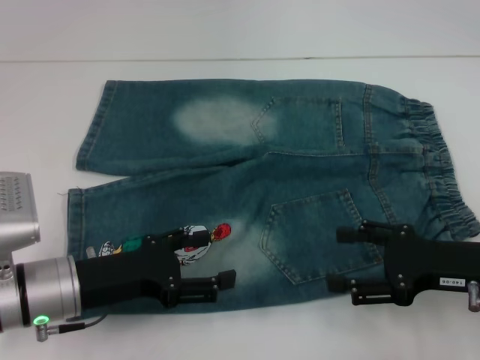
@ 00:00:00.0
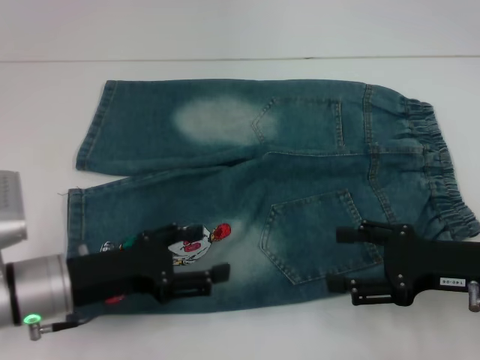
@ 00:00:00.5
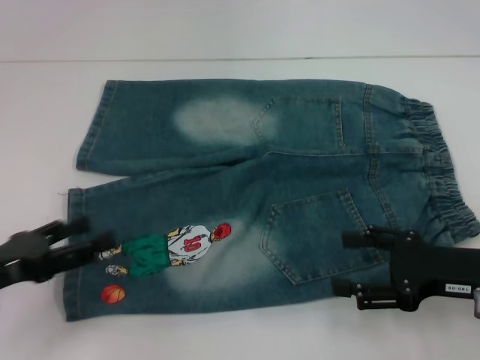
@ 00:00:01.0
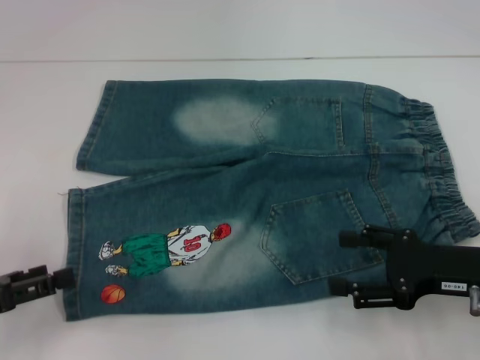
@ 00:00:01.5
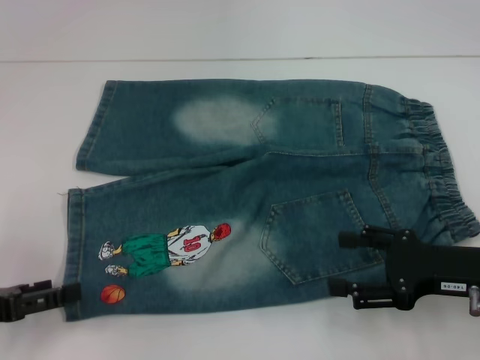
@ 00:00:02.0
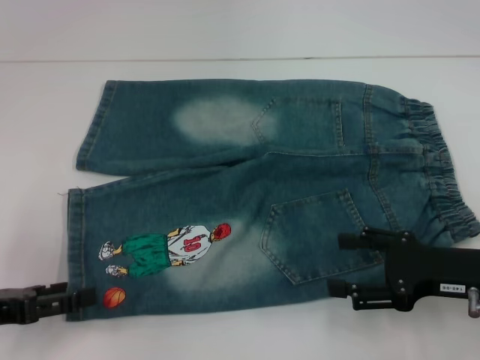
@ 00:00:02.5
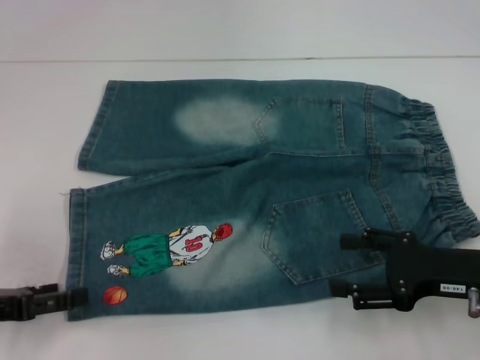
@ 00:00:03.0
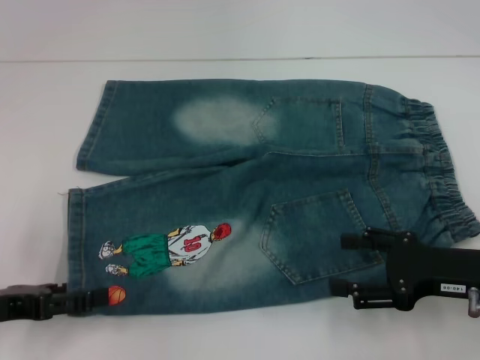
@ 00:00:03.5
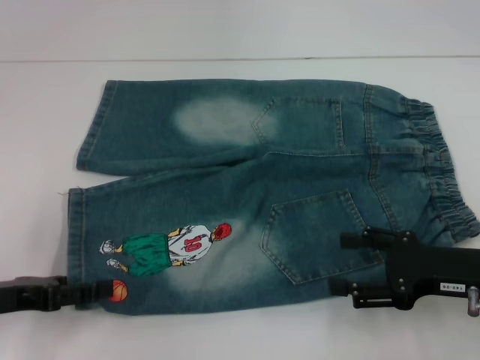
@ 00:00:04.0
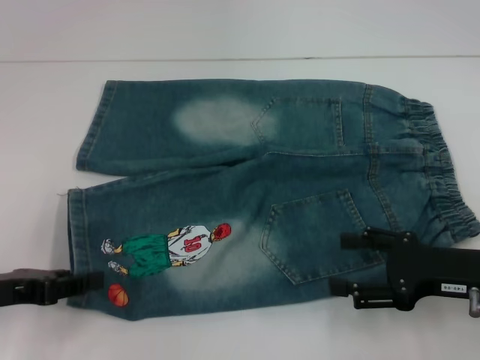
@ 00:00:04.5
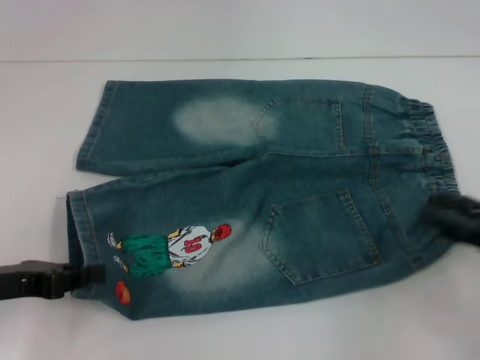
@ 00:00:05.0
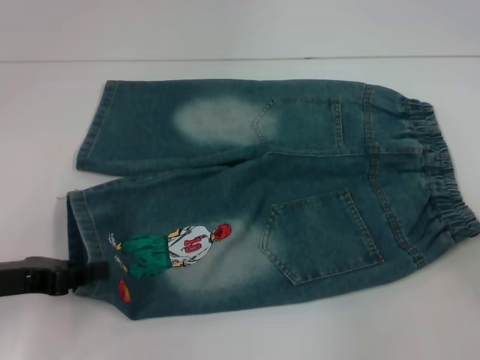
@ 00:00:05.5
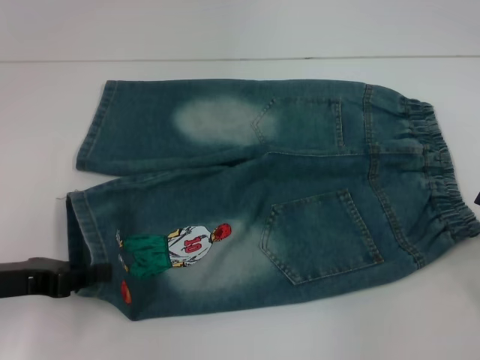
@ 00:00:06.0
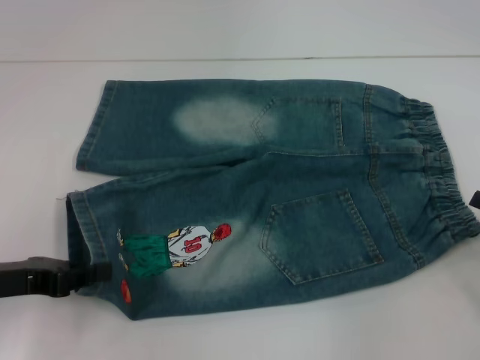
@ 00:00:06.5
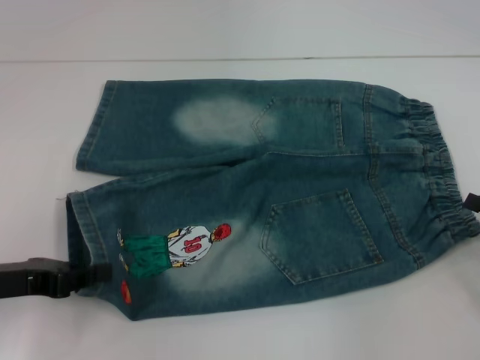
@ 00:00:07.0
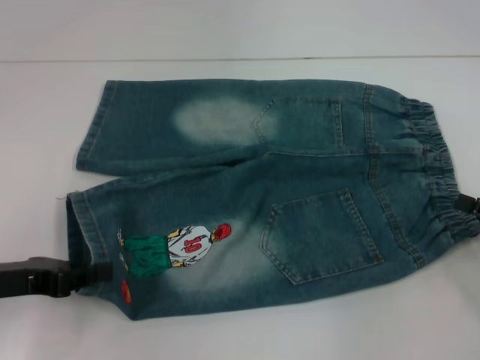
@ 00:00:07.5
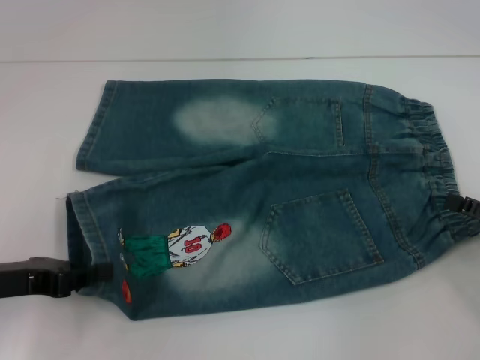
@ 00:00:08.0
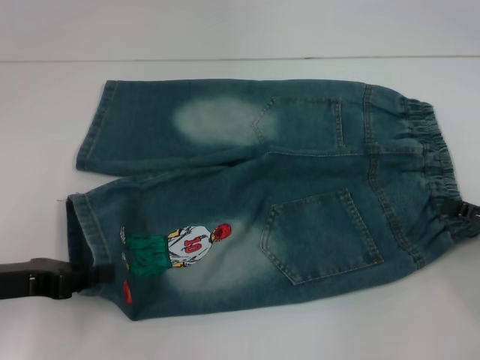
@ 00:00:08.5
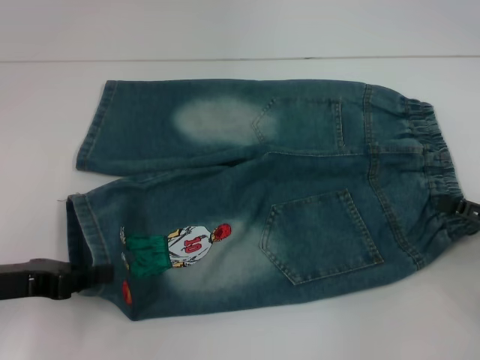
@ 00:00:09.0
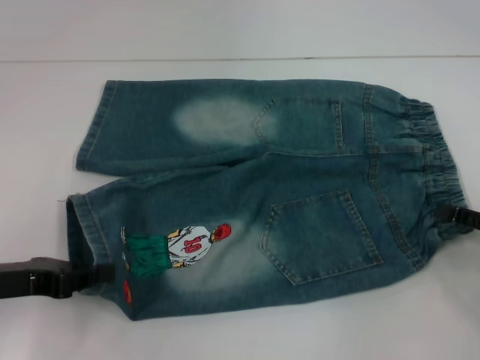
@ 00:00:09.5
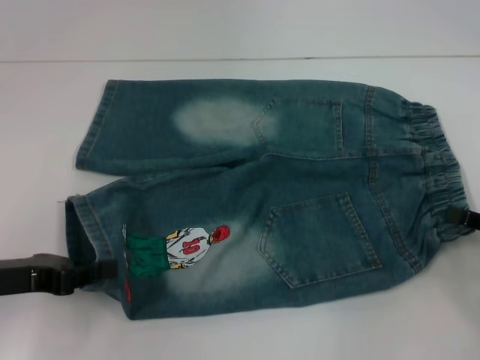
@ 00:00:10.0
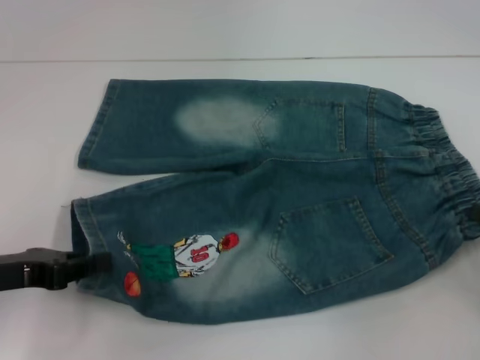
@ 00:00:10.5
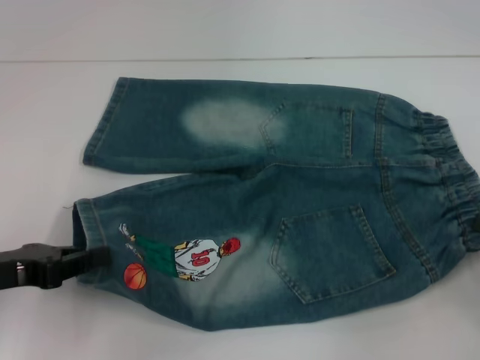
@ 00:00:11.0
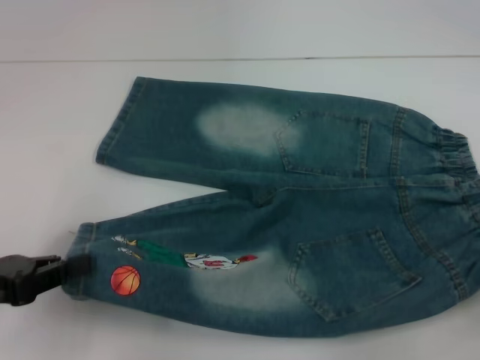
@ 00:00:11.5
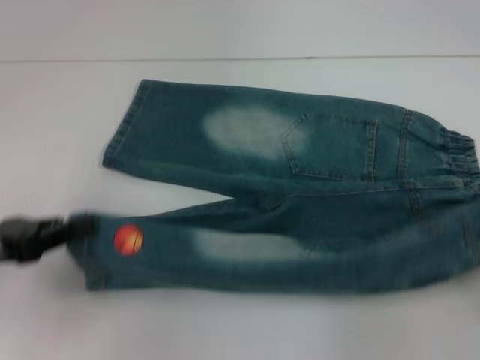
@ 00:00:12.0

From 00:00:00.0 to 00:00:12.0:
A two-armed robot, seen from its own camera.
Step, from 00:00:00.0 to 00:00:04.5: Grab the lower left pant leg with your left hand.
Step, from 00:00:05.5 to 00:00:10.0: Hold the lower right waistband with your right hand.
From 00:00:00.0 to 00:00:02.0: The left gripper heads to the left, covering roughly 15 cm.
From 00:00:02.0 to 00:00:04.0: The grippers stay close to where they were, moving slightly.
From 00:00:04.0 to 00:00:06.0: The right gripper moves to the right, about 10 cm. The left gripper closes.
From 00:00:08.0 to 00:00:10.0: The right gripper closes its fingers.
From 00:00:10.0 to 00:00:12.0: The right gripper shifts by about 5 cm.

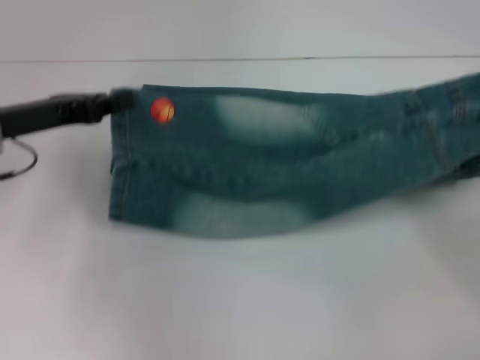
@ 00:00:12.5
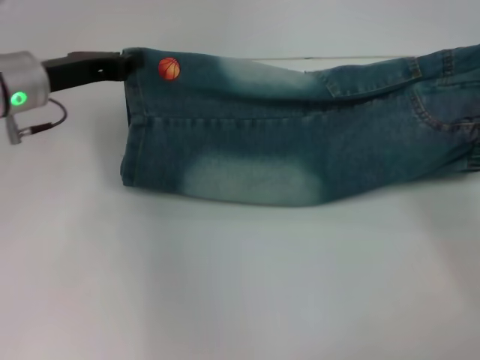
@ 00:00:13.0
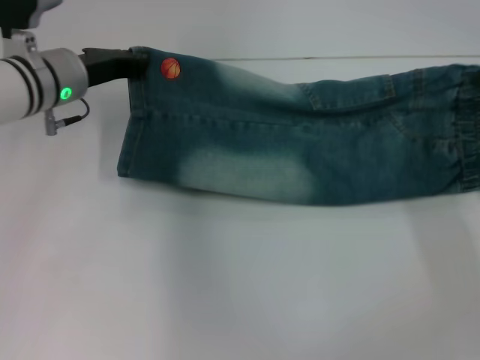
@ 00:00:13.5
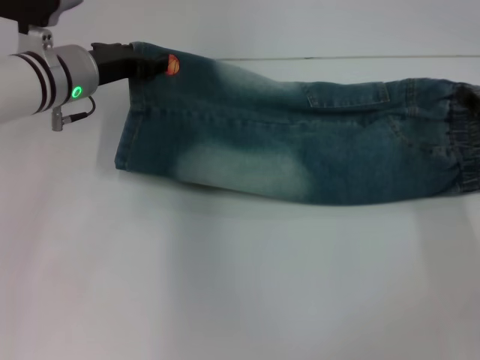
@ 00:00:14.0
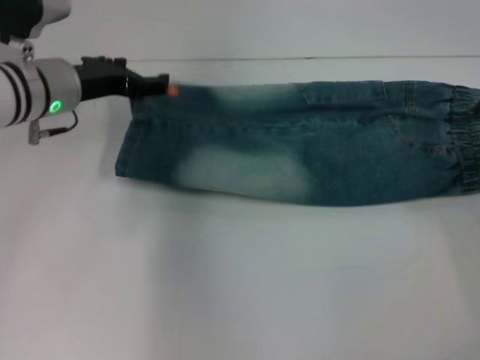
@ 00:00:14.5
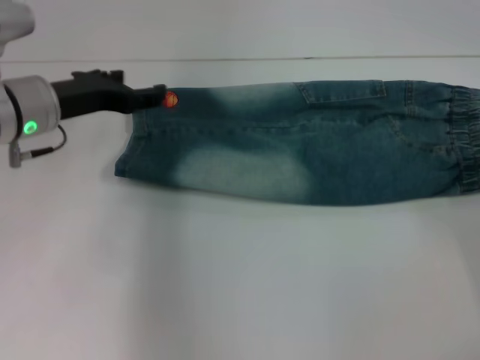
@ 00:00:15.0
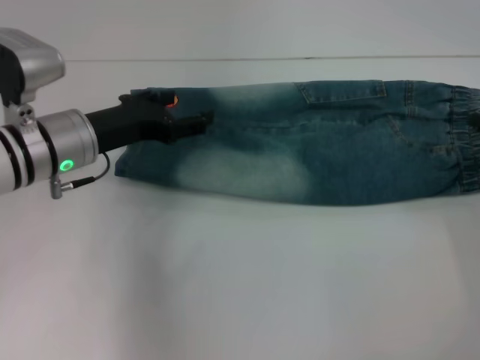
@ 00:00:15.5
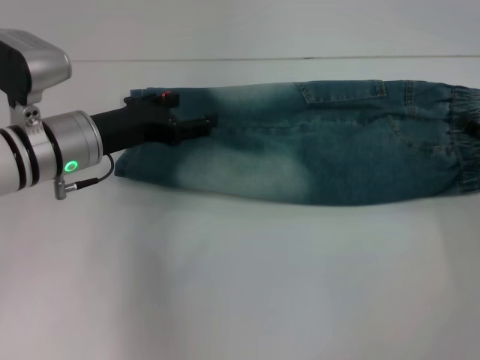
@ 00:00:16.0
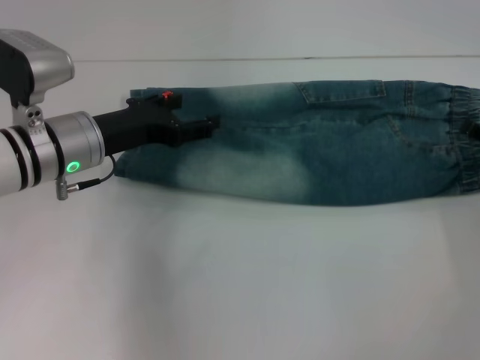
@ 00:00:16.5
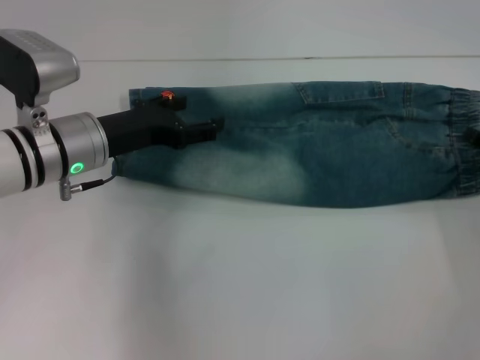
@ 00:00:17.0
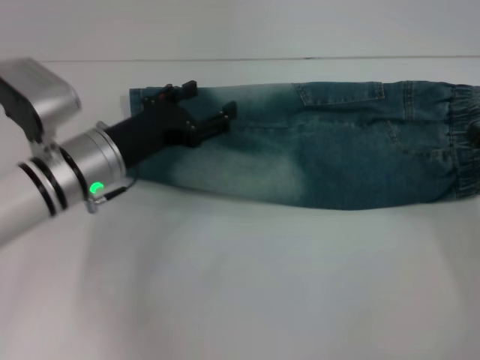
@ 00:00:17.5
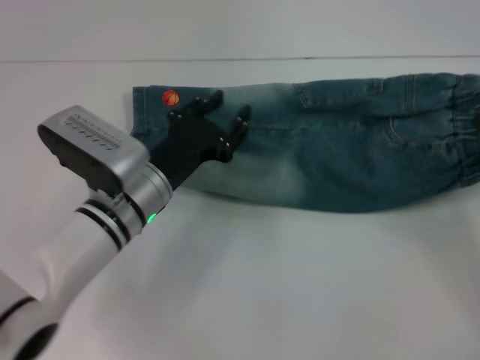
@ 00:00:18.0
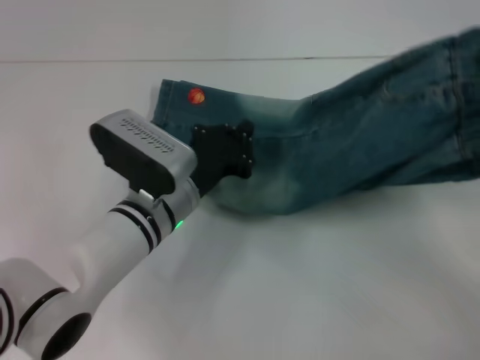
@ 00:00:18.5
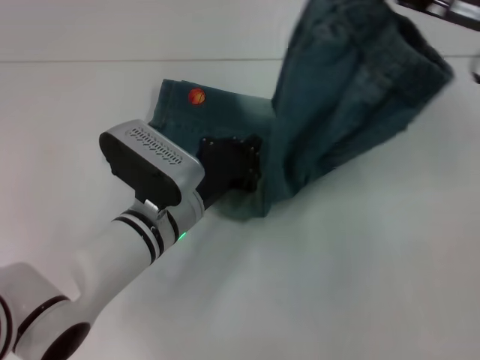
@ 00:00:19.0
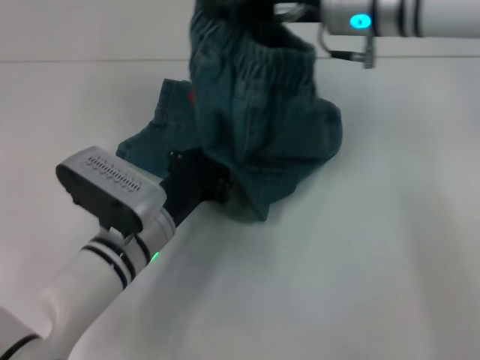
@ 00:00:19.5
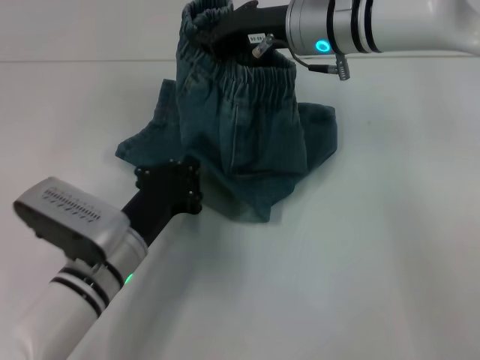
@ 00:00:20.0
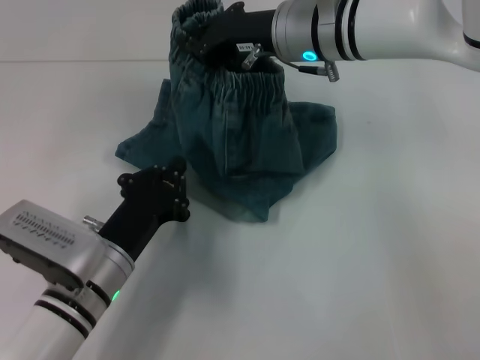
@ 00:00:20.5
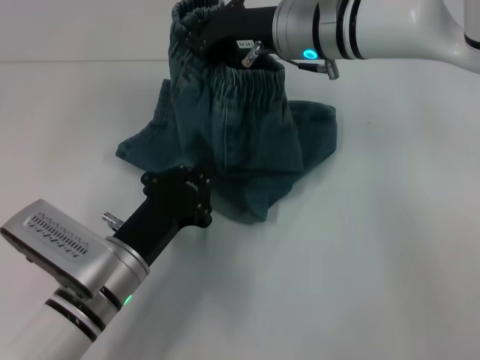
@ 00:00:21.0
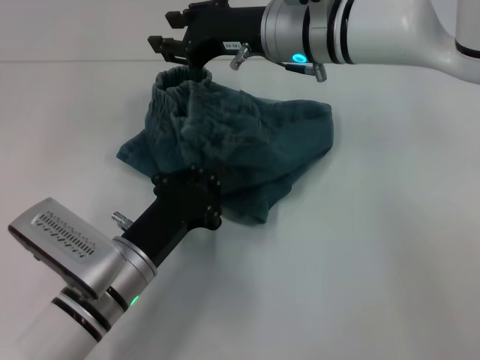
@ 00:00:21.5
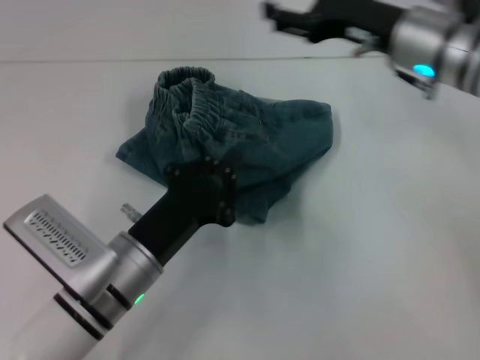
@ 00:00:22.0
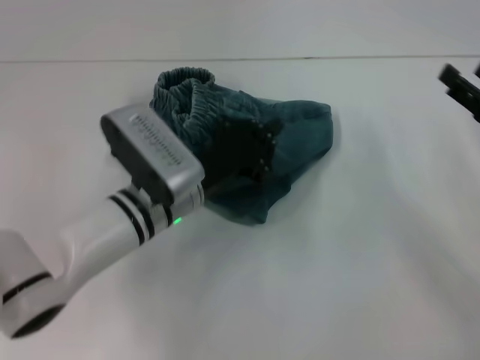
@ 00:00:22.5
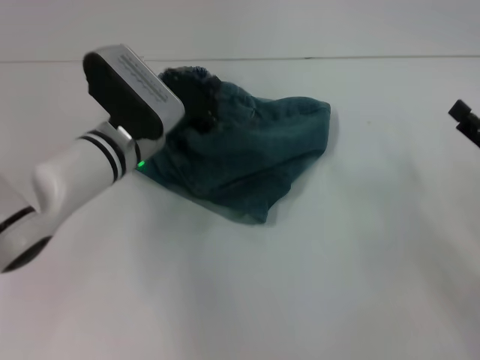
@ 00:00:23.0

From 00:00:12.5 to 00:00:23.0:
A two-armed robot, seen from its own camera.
Step, from 00:00:15.0 to 00:00:17.5: Grab the waistband with your right hand.
Step, from 00:00:18.0 to 00:00:19.5: Press the middle of the pants with your left hand.
Step, from 00:00:20.0 to 00:00:21.5: Fold to the left with your right hand.
From 00:00:12.5 to 00:00:14.5: The left gripper goes approximately 10 cm to the right and forward, and opens. Meanwhile the right gripper goes roughly 5 cm downward, and opens its fingers.
From 00:00:14.5 to 00:00:16.5: The left gripper moves backward, about 5 cm.
From 00:00:16.5 to 00:00:19.0: The left gripper heads to the right and downward, covering approximately 10 cm, and closes its fingers, while the right gripper moves upward, to the left and forward, some 20 cm, and closes.
From 00:00:19.0 to 00:00:21.0: The left gripper shifts some 10 cm backward and to the left. Meanwhile the right gripper goes some 20 cm to the left.
From 00:00:21.0 to 00:00:23.0: The left gripper heads forward, covering some 15 cm, while the right gripper goes approximately 35 cm to the right, backward and downward, and opens its fingers.

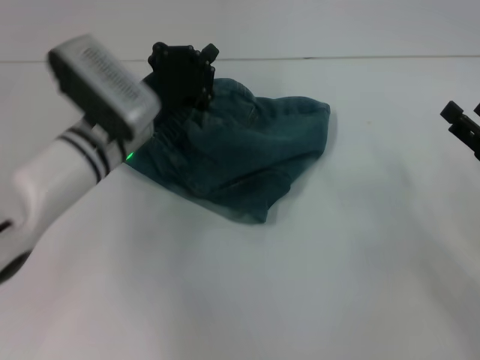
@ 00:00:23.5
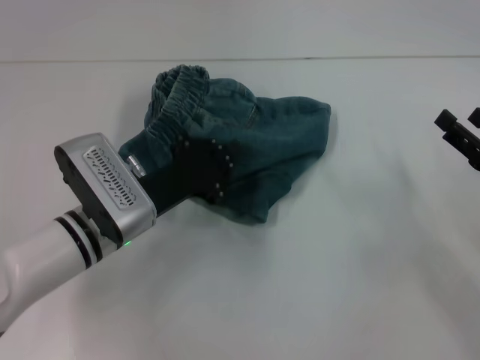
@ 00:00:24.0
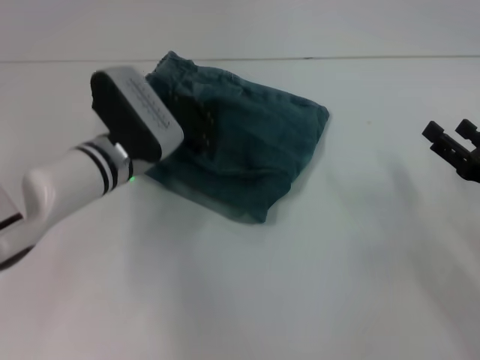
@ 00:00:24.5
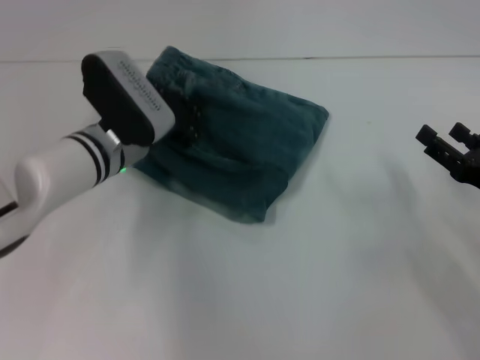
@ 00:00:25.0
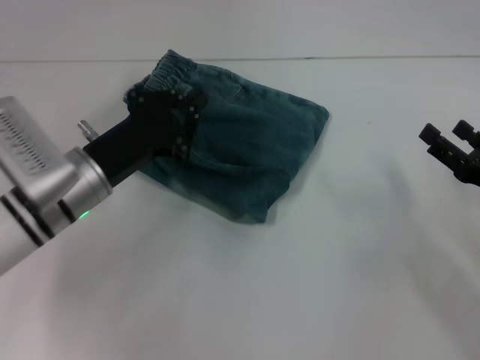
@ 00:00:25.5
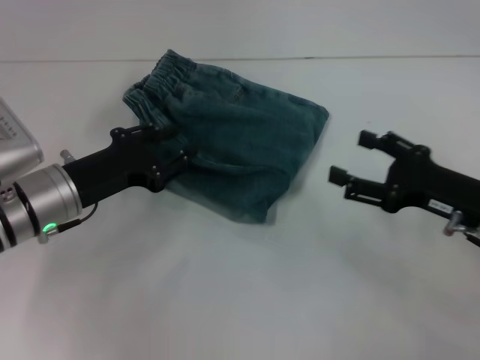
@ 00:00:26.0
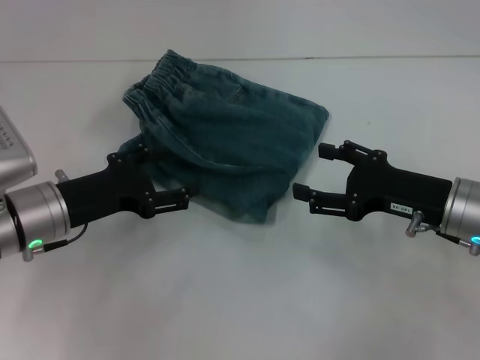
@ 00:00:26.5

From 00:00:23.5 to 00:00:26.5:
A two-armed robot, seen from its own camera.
From 00:00:23.5 to 00:00:25.0: The left gripper travels backward and back again, roughly 5 cm each way.
From 00:00:25.0 to 00:00:26.5: The right gripper heads to the left, covering approximately 10 cm. The left gripper shifts approximately 10 cm backward and to the left, and opens its fingers.
